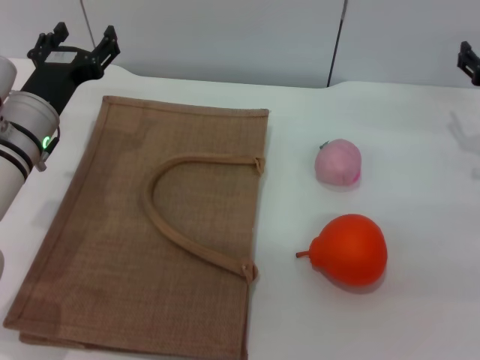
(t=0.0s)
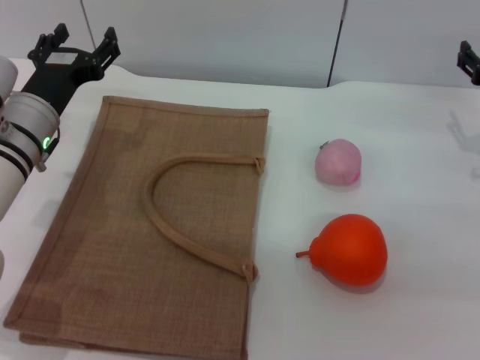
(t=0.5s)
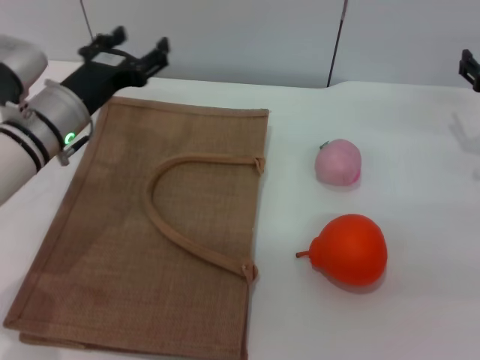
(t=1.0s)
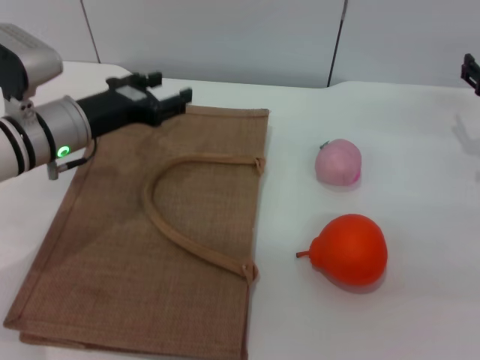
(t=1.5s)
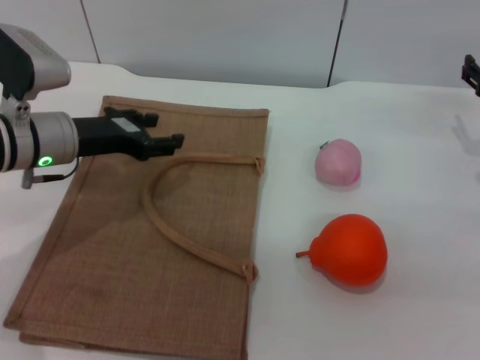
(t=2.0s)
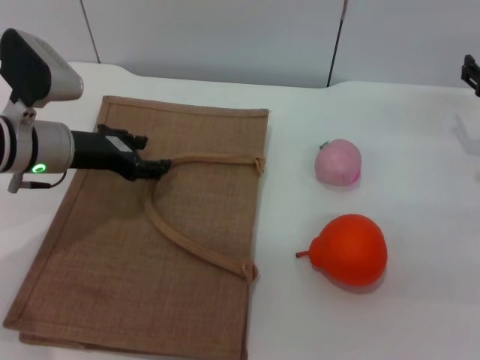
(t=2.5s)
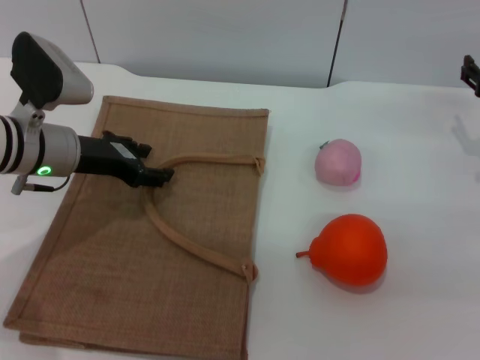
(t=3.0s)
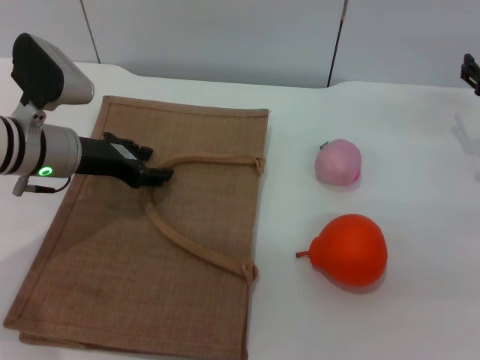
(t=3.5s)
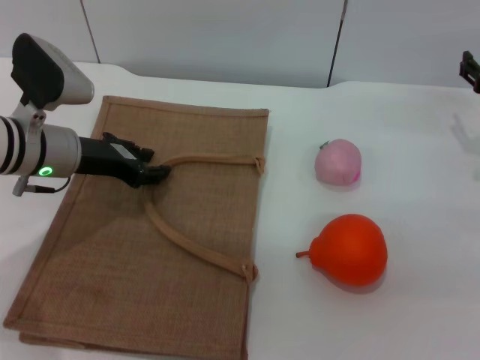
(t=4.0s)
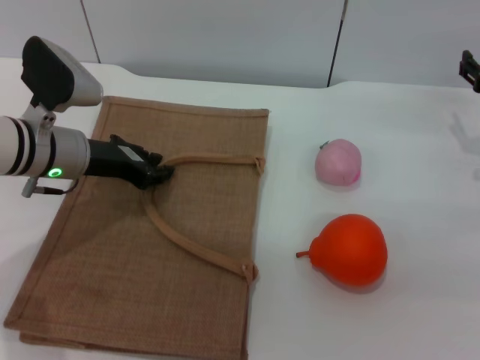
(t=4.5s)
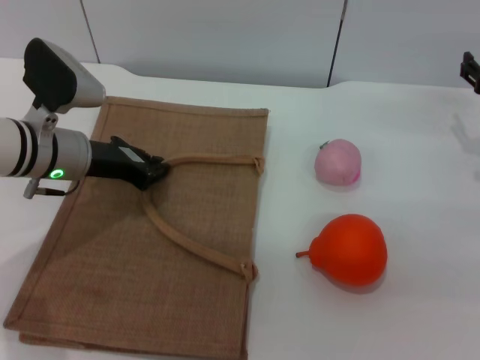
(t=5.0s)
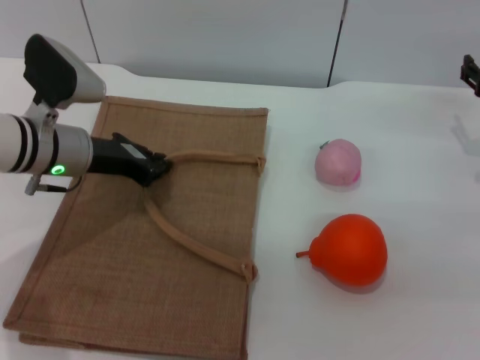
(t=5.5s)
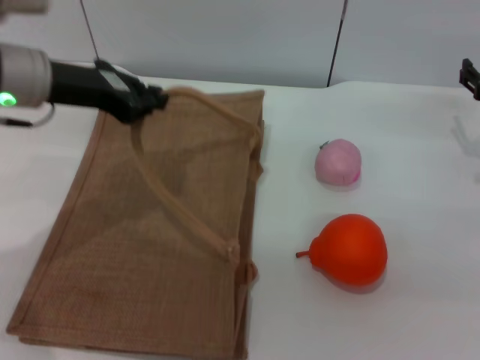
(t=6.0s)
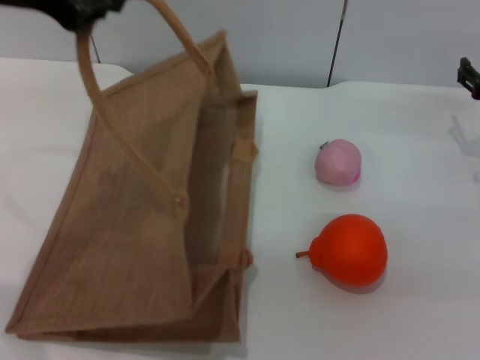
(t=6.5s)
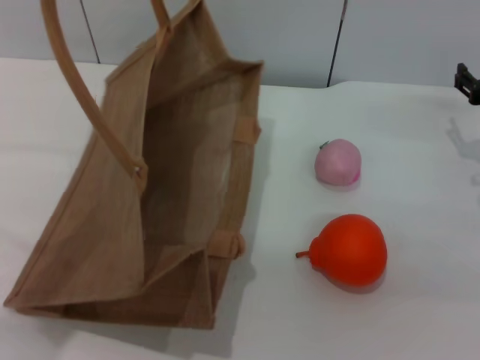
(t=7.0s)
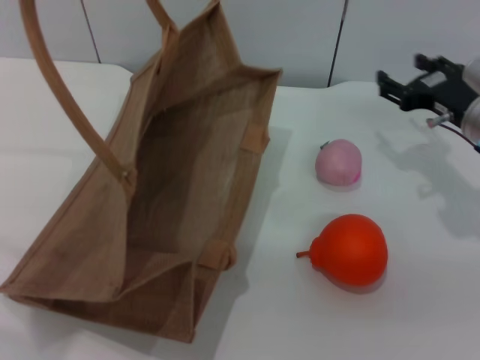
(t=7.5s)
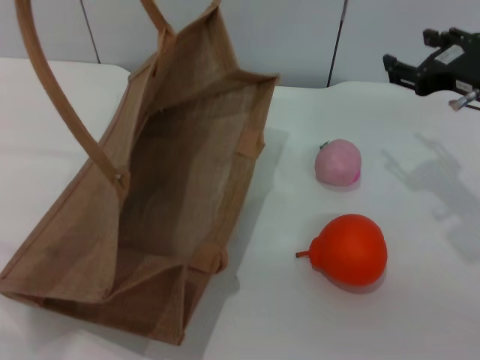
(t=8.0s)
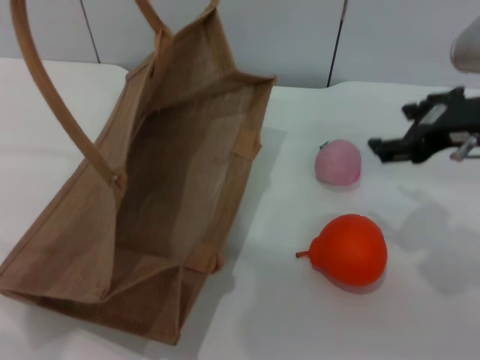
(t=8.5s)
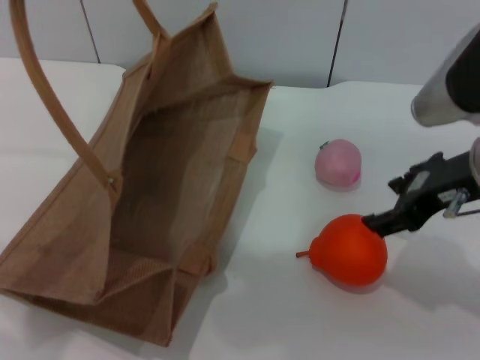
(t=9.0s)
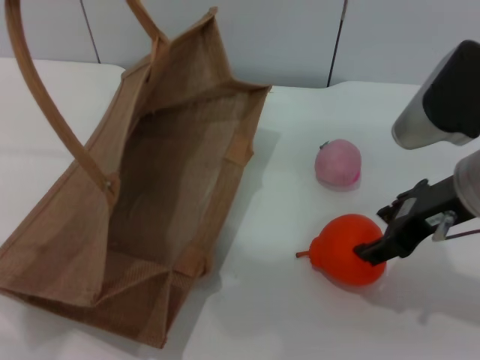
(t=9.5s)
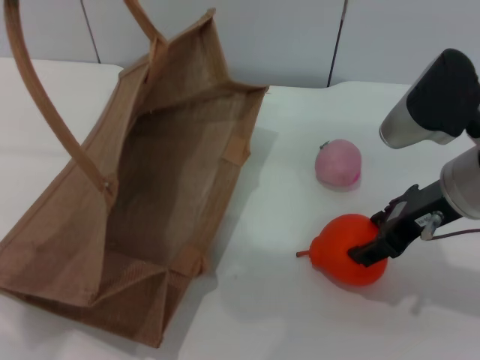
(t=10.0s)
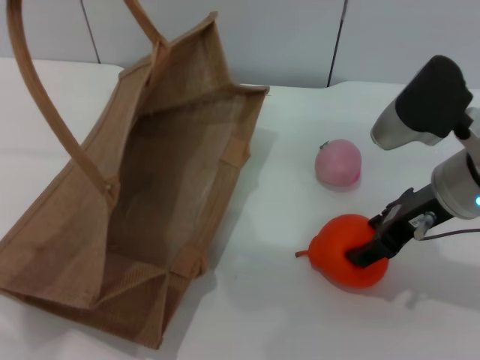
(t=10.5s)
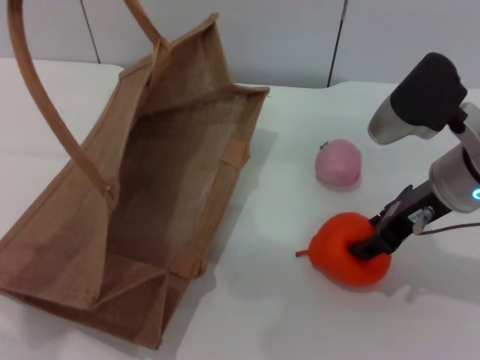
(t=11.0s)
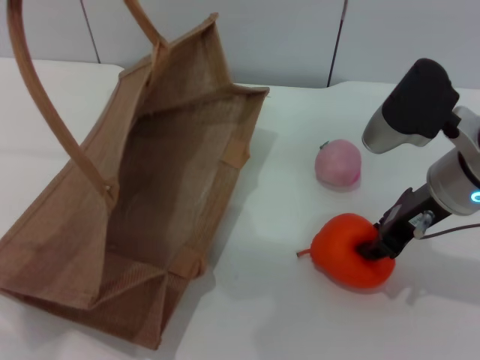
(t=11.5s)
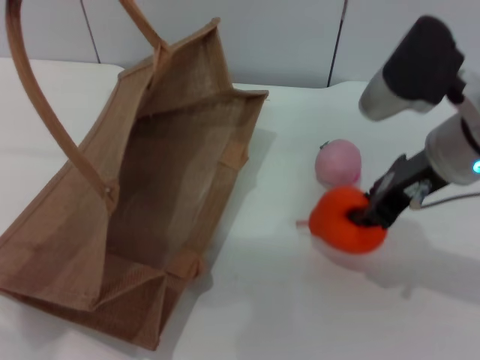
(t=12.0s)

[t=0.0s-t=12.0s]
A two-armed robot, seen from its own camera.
Task of the whole recording: pick up the orange and peach from the table and place it in the brown handbag.
Step, t=0.0s to t=6.5s: Lift the woven bag with the left gripper to open it.
t=2.0s to t=4.0s: The grippers make only small movements.
t=4.0s to t=6.0s: The left gripper goes roughly 10 cm upward, and closes.
t=6.0s to t=8.0s: The right gripper heads upward and to the left, covering roughly 10 cm; the left gripper goes roughly 20 cm upward and backward.
t=8.0s to t=10.0s: The right gripper heads to the left and backward, covering roughly 10 cm.
t=10.0s to t=12.0s: The right gripper closes its fingers.

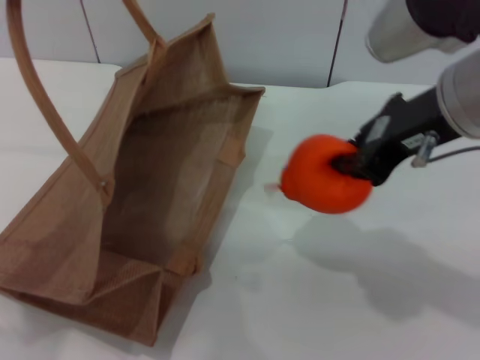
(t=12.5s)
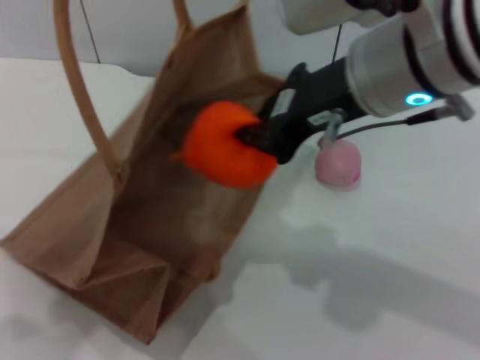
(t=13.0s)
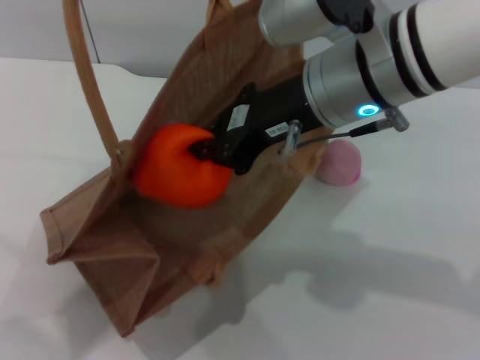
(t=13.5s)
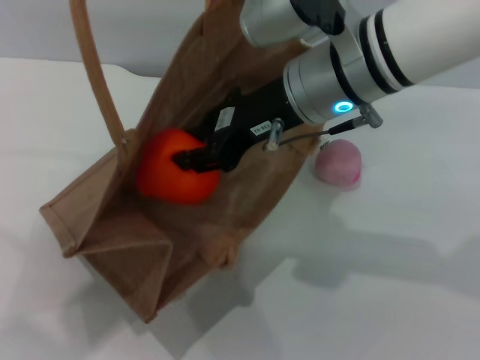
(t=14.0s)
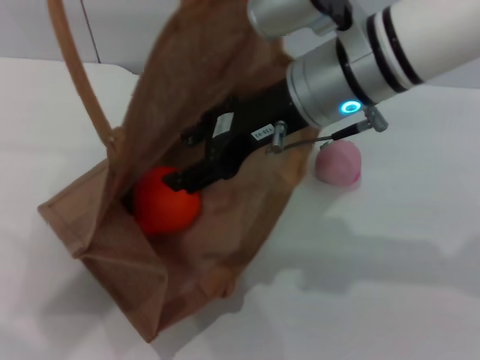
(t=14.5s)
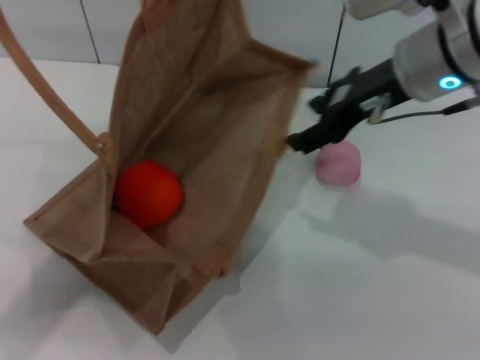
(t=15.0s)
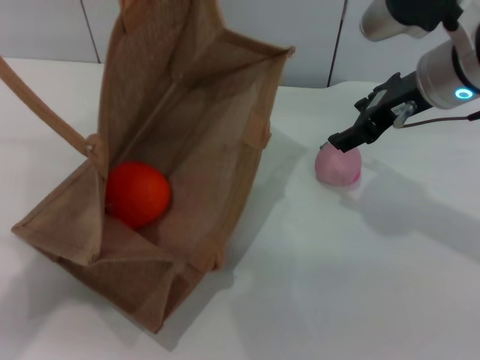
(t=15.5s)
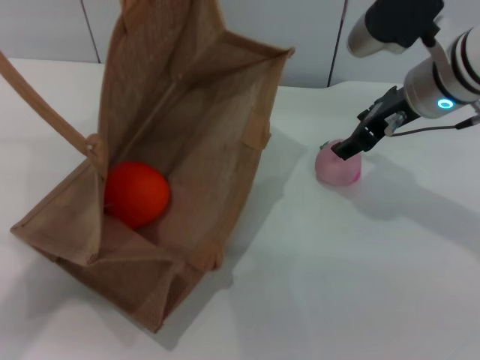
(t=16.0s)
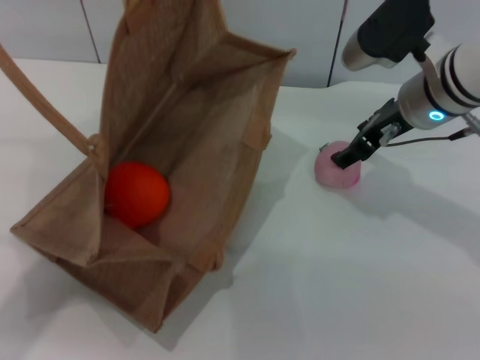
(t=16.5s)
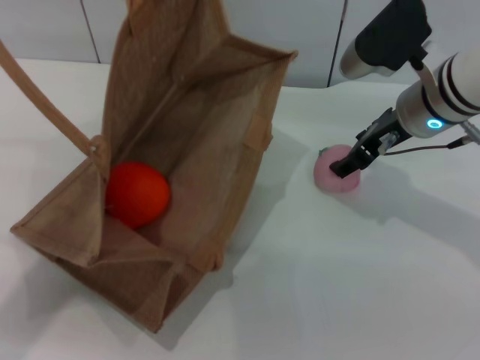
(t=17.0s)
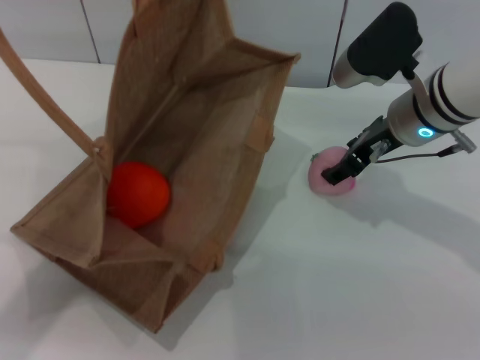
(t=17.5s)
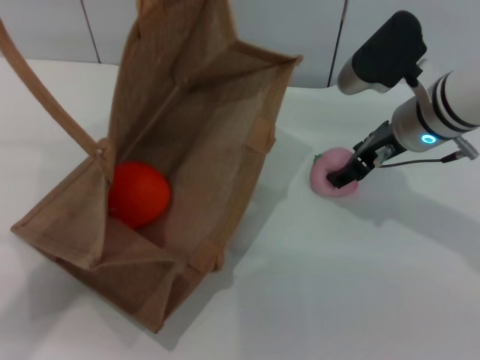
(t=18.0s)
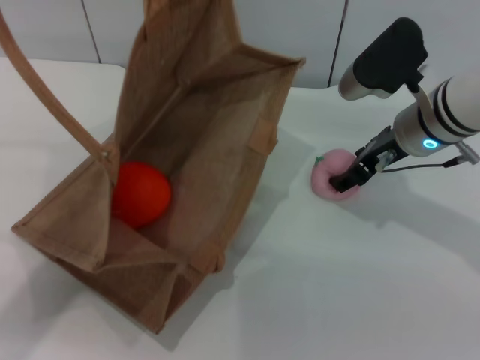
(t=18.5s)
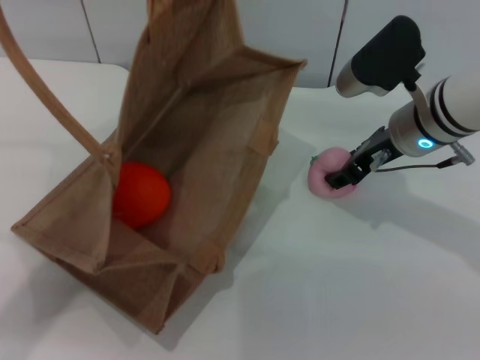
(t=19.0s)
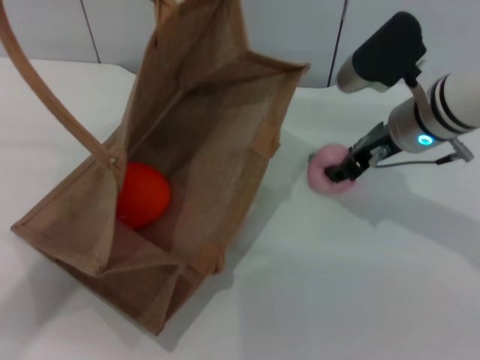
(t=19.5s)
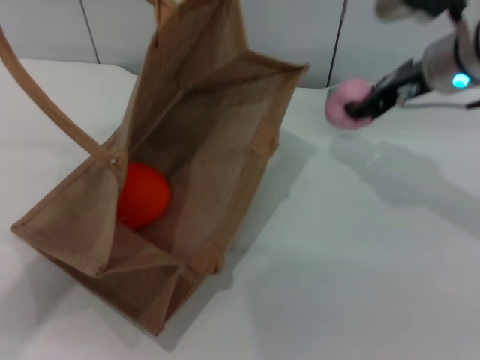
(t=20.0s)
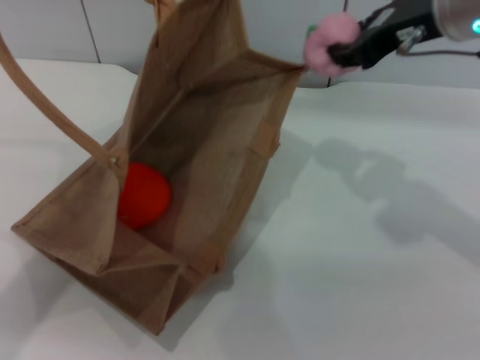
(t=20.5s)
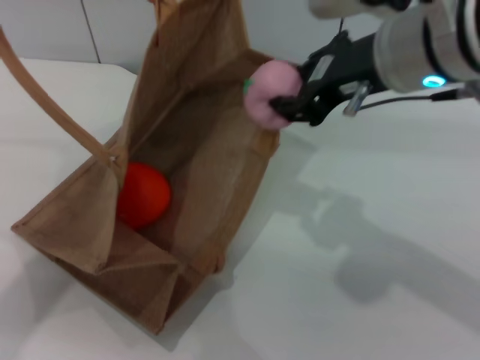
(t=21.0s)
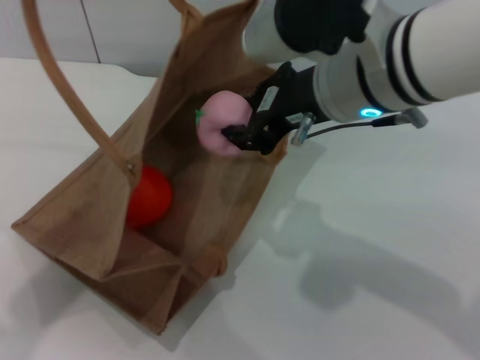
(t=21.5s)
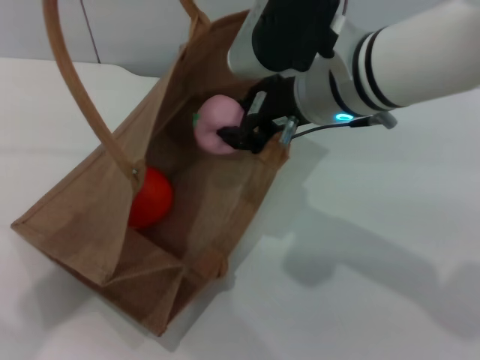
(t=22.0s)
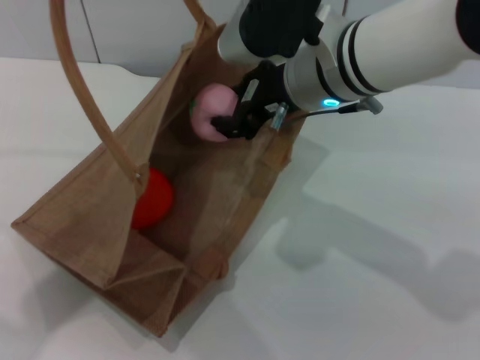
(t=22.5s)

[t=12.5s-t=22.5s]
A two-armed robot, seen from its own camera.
Task of the whole recording: pick up the orange and peach from the table and place it in the brown handbag.
Step, t=12.5s to t=14.5s: Place the orange into the woven bag with the right gripper.
Step, t=15.0s to t=19.5s: Pick up the peach with the right gripper.
t=12.5s to t=14.5s: The right gripper moves to the left, approximately 10 cm, and opens up.
t=14.5s to t=16.5s: The right gripper travels to the right, downward and forward by about 15 cm. Meanwhile the left gripper travels to the left by some 5 cm.
t=16.5s to t=18.5s: The grippers make only small movements.
t=18.5s to t=20.5s: The right gripper travels upward by about 15 cm, and closes up.
t=20.5s to t=22.5s: The right gripper goes about 10 cm to the left and downward.

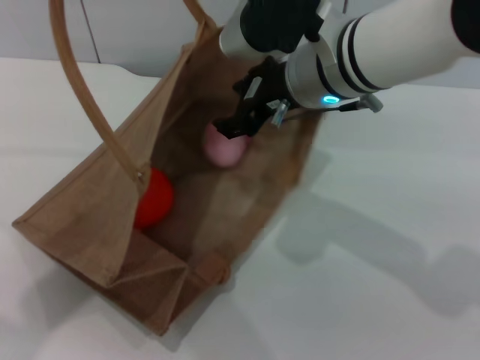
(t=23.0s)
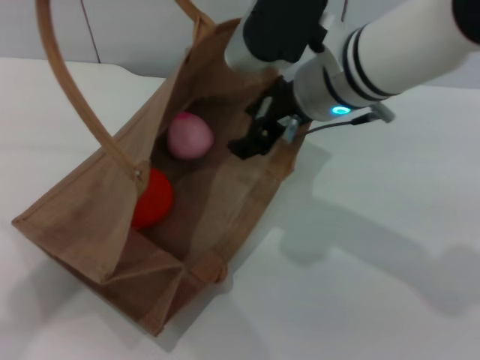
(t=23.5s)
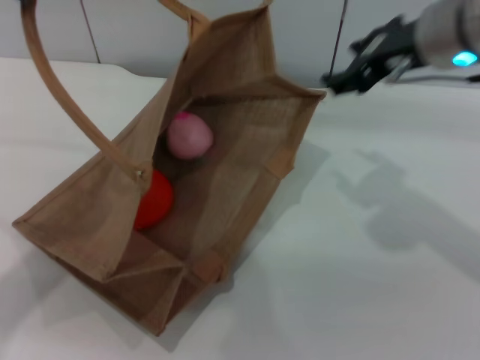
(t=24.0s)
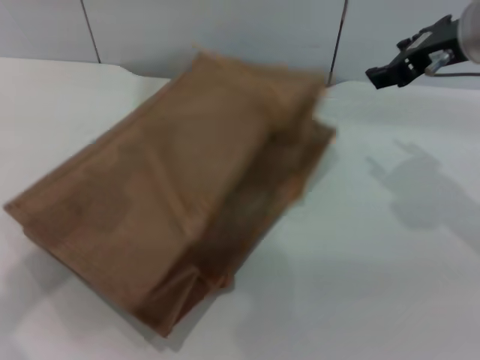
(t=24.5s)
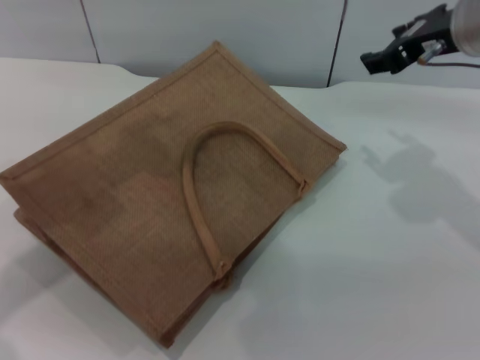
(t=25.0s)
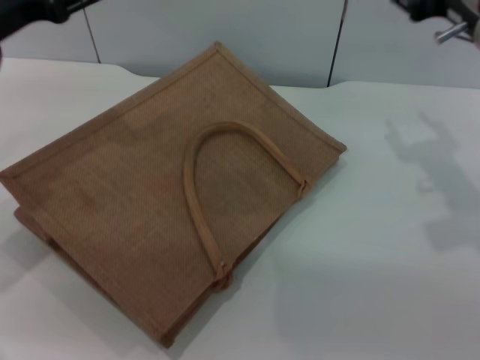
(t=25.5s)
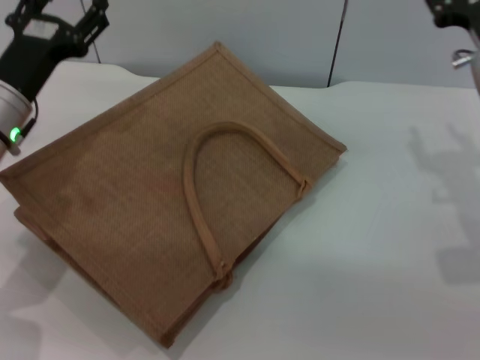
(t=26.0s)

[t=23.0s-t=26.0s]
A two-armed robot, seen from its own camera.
Task of the whole recording: pick up the orange and peach from the table and place it in the brown handbag.
Step, t=23.0s to t=24.5s: Lower the woven bag with the left gripper to close it.
t=23.0s to t=24.5s: The right gripper moves to the right, roughly 15 cm.
t=24.5s to t=26.0s: The left gripper moves downward, some 20 cm, and opens its fingers, while the right gripper goes about 10 cm downward.
